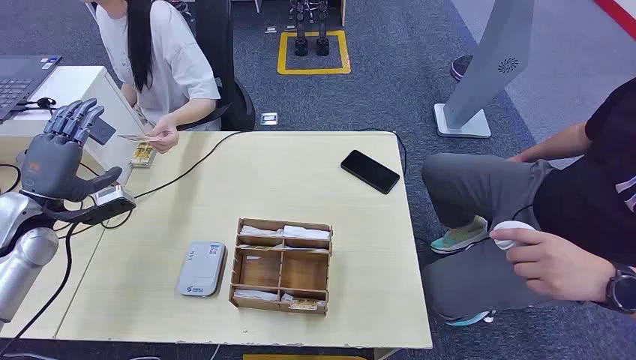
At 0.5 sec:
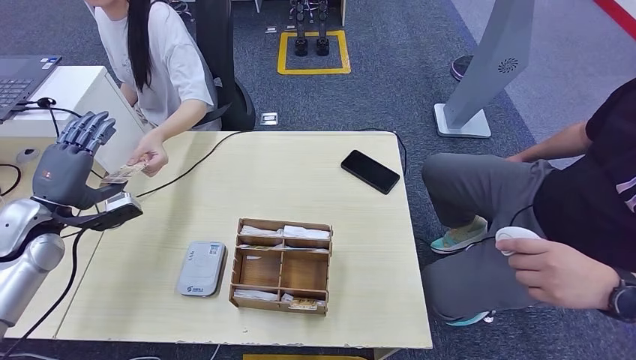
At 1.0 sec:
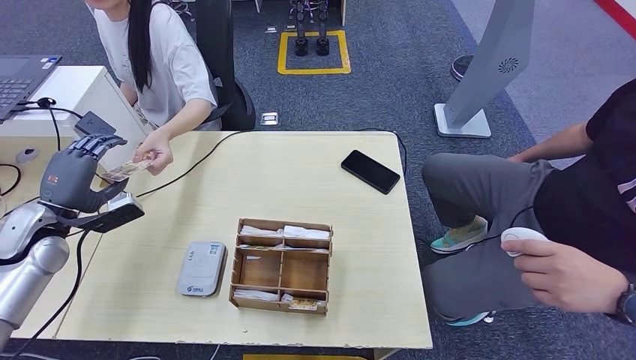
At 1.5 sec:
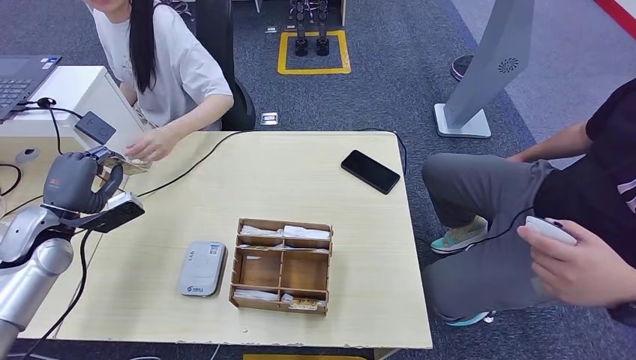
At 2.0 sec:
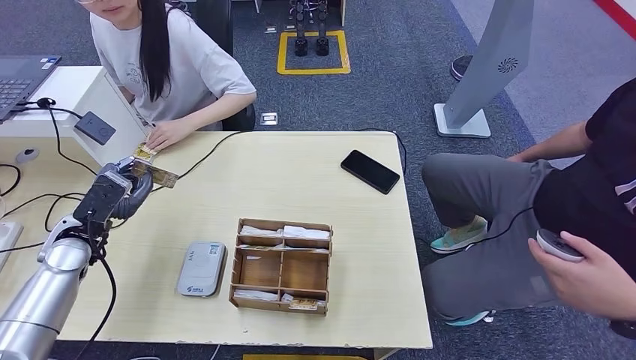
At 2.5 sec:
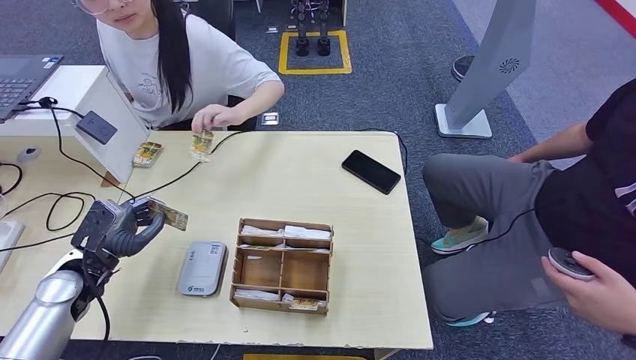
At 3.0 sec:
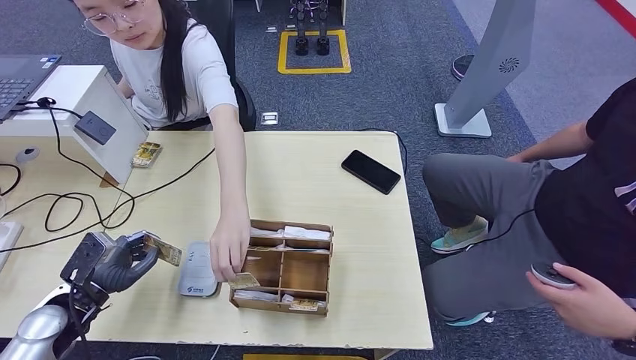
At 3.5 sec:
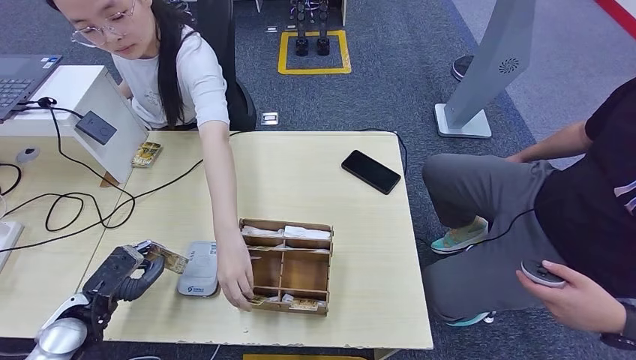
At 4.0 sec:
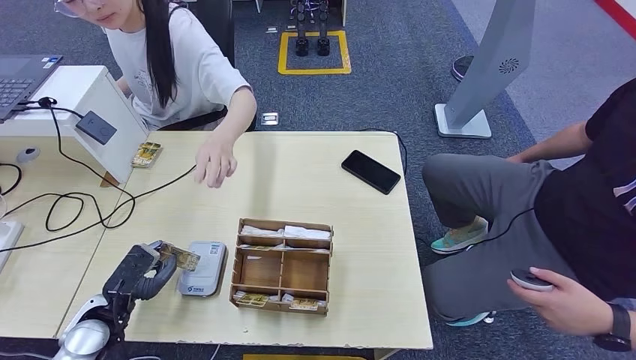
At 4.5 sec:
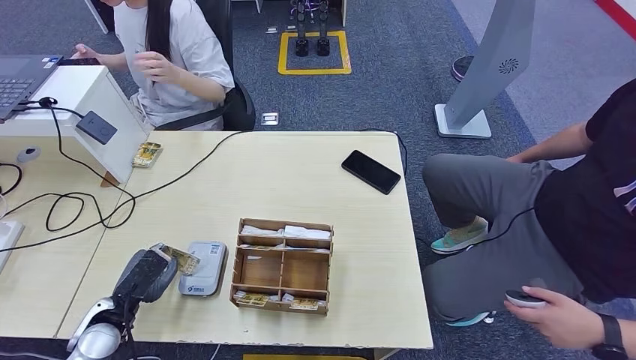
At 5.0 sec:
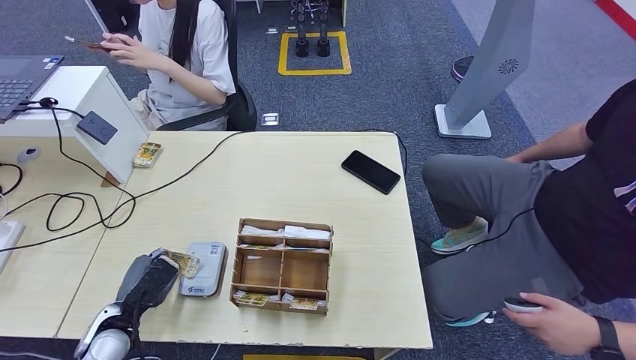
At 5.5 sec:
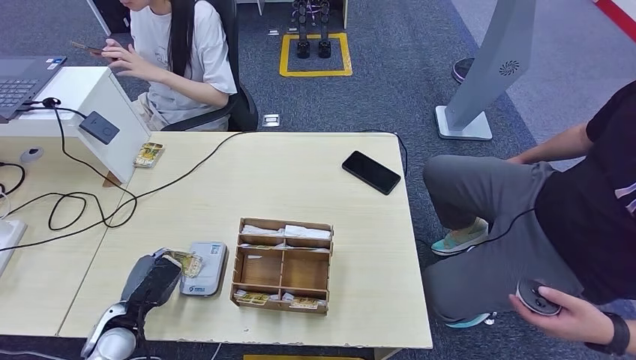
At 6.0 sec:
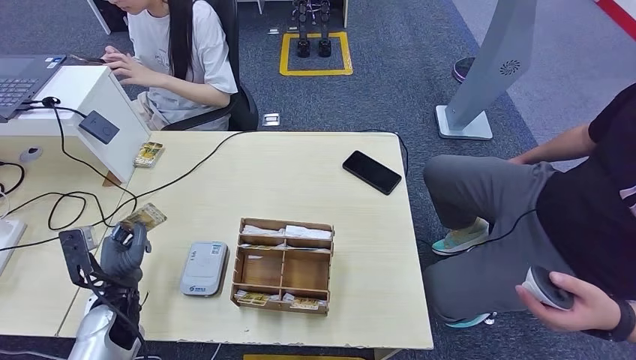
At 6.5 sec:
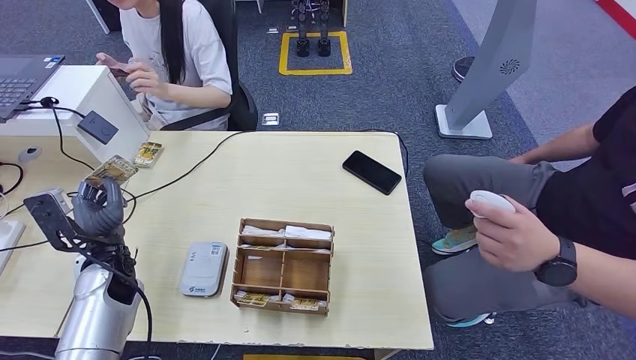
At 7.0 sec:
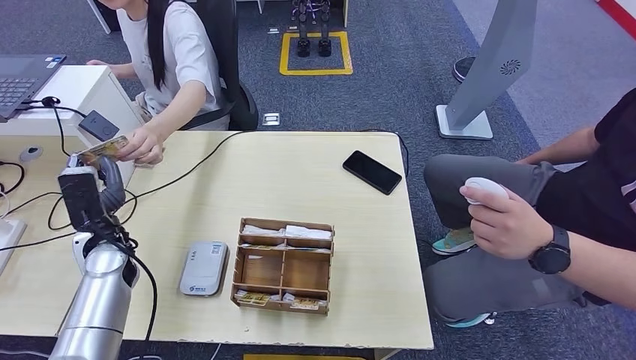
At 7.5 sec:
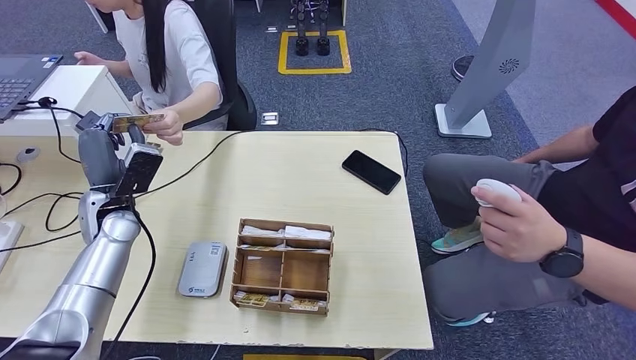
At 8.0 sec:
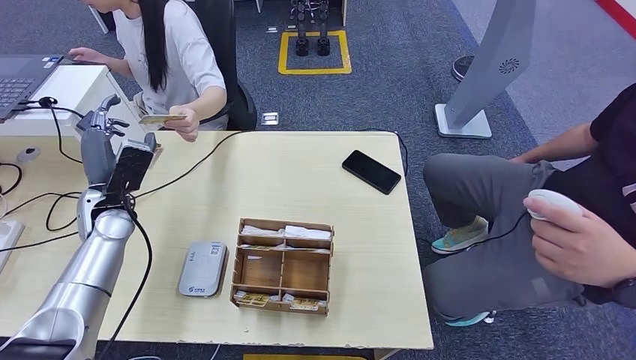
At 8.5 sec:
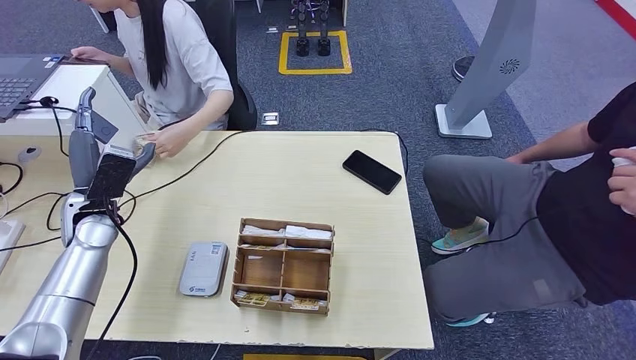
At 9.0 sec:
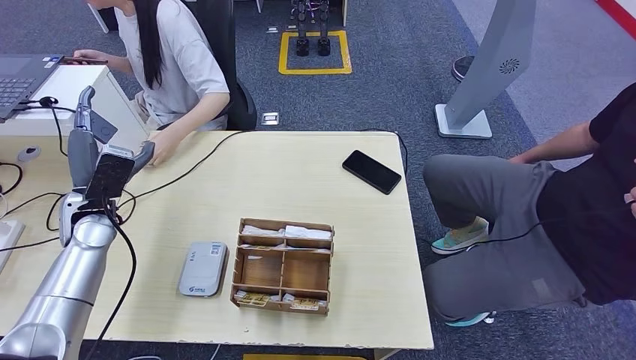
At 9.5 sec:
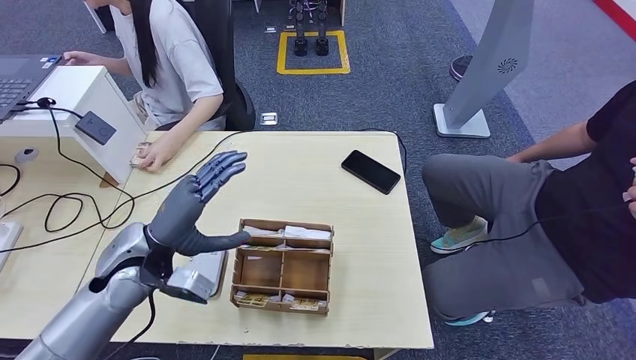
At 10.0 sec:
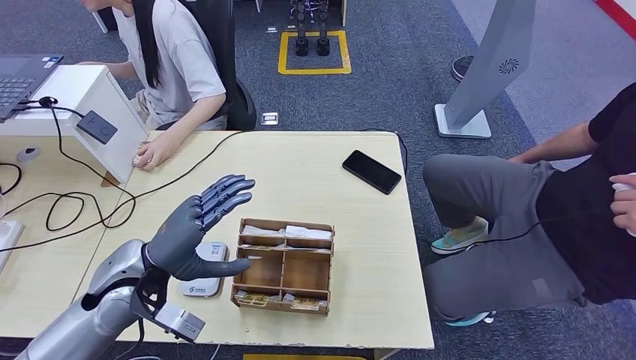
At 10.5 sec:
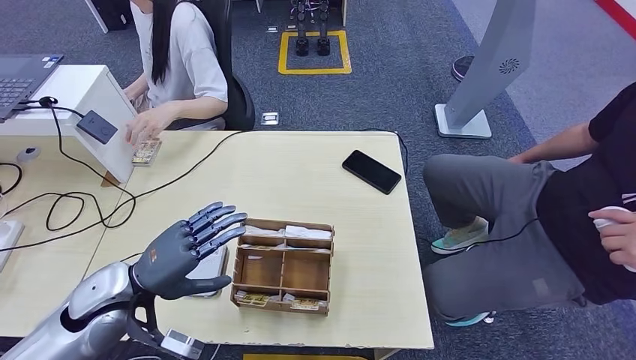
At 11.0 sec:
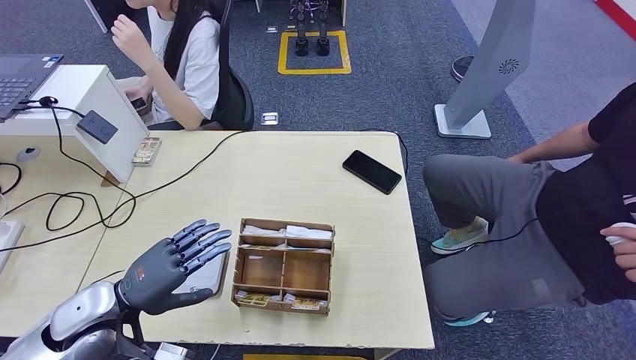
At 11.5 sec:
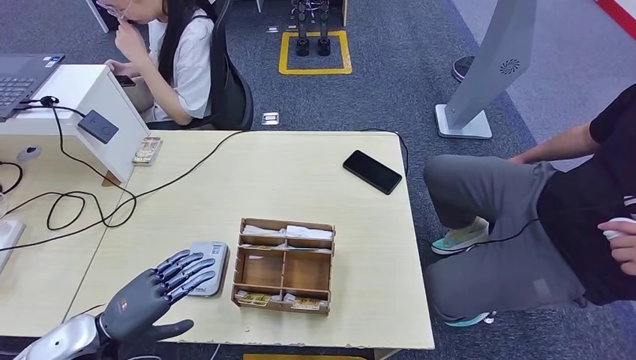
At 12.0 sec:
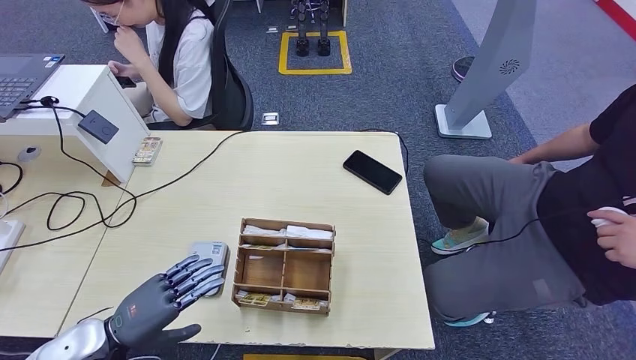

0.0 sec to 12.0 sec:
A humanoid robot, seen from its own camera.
Step, 0.0 sec to 2.5 sec: Take the ID card from the person's hand.
Step, 3.0 sec to 5.0 sec: Place the ID card on the card reader.
Step, 5.5 sec to 8.0 sec: Hand the ID card to the person.
2.0 sec to 4.0 sec: The left hand goes about 15 cm backward and downward.
8.0 sec to 10.0 sec: The left hand heads backward and to the right, covering about 15 cm.
10.0 sec to 12.0 sec: The left hand goes approximately 15 cm backward, downward and to the left.

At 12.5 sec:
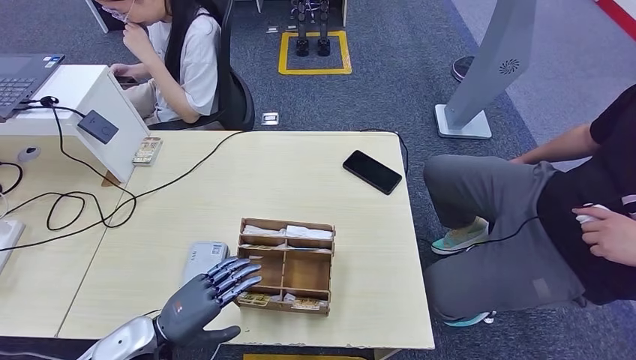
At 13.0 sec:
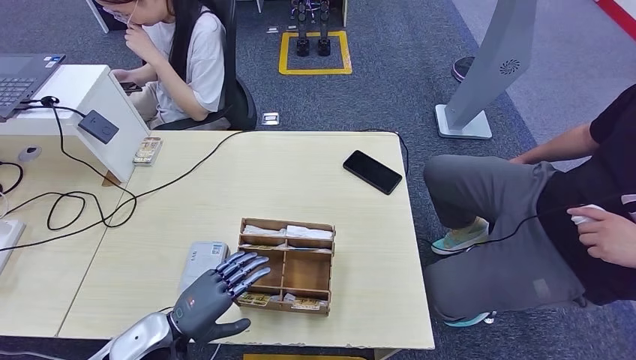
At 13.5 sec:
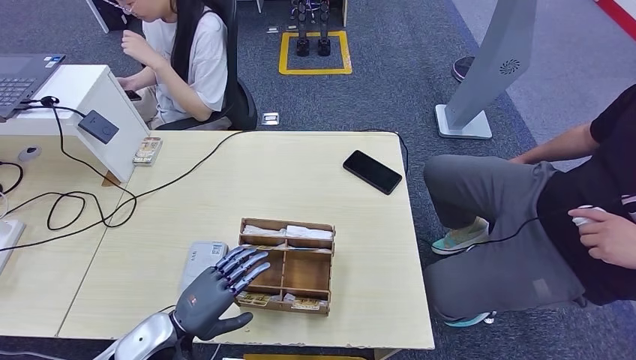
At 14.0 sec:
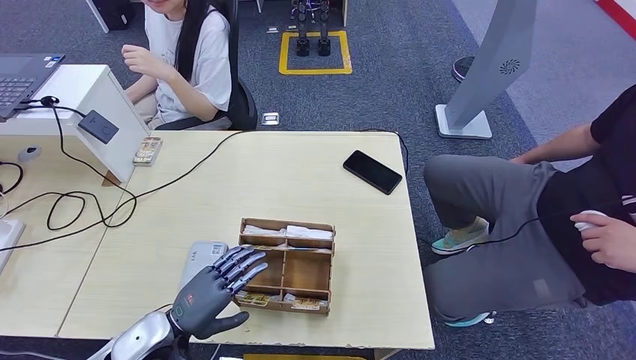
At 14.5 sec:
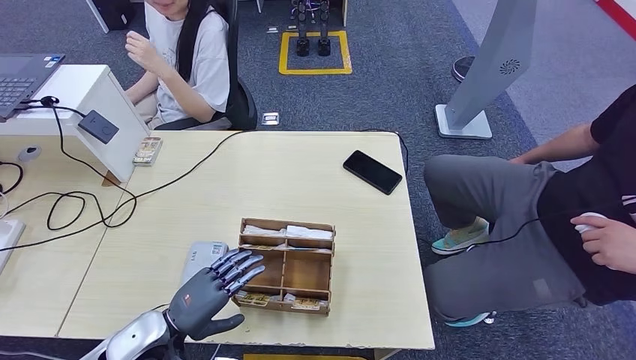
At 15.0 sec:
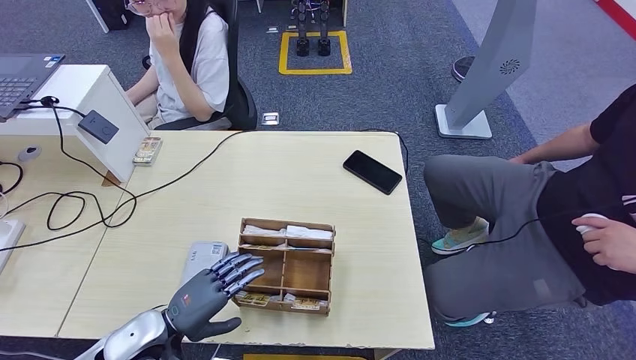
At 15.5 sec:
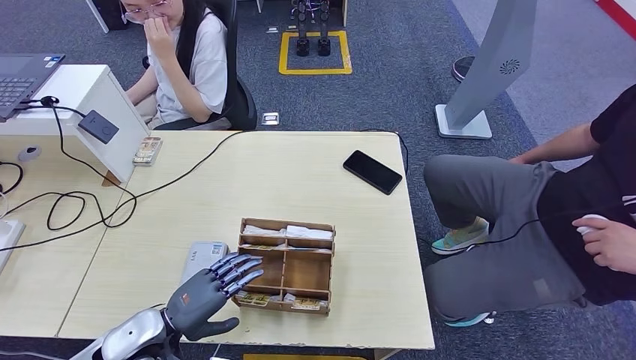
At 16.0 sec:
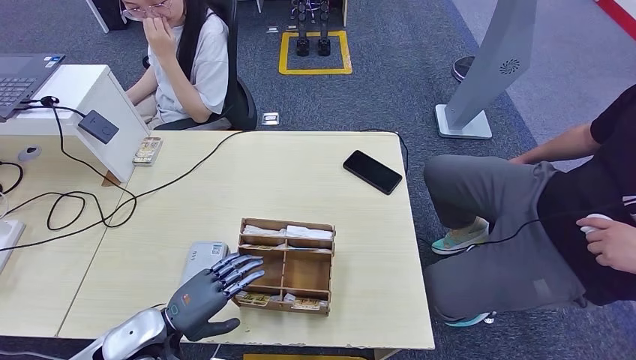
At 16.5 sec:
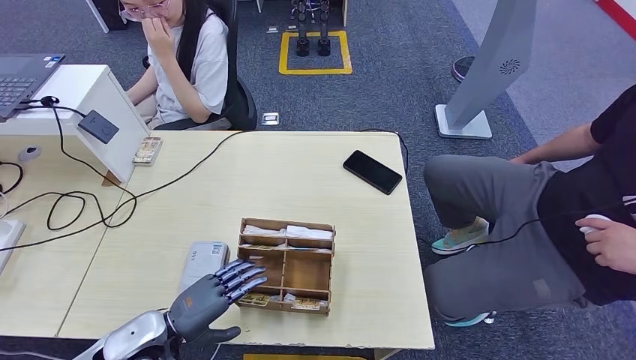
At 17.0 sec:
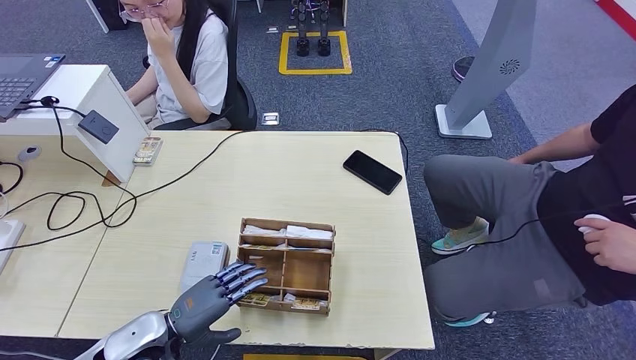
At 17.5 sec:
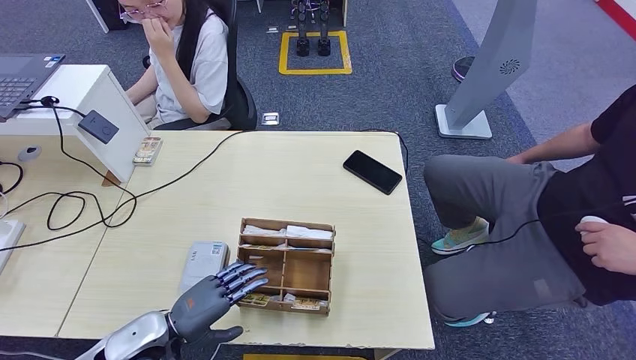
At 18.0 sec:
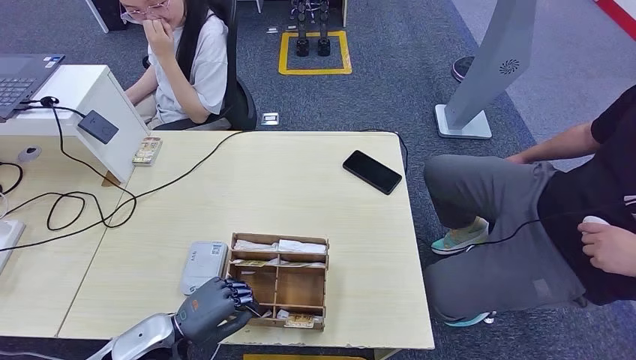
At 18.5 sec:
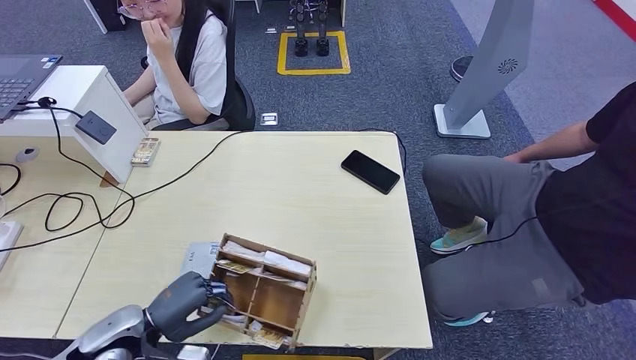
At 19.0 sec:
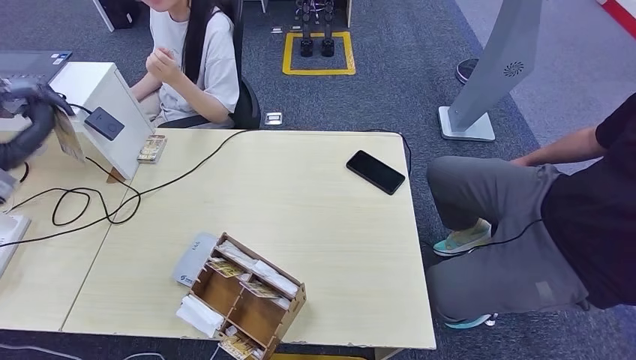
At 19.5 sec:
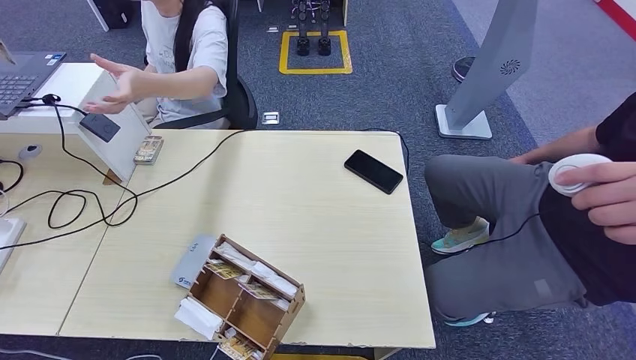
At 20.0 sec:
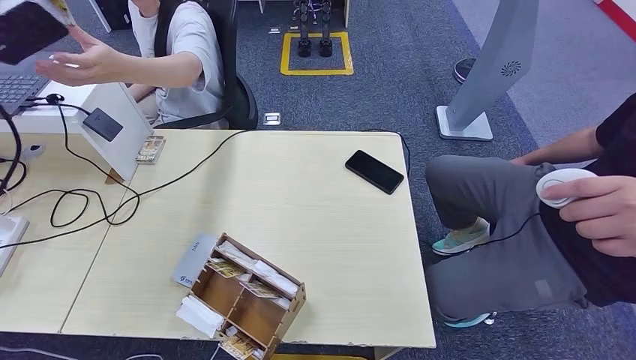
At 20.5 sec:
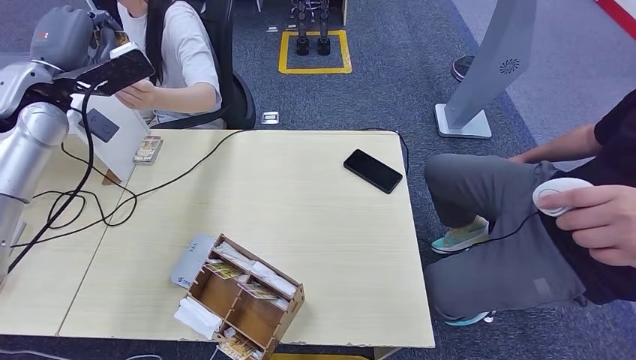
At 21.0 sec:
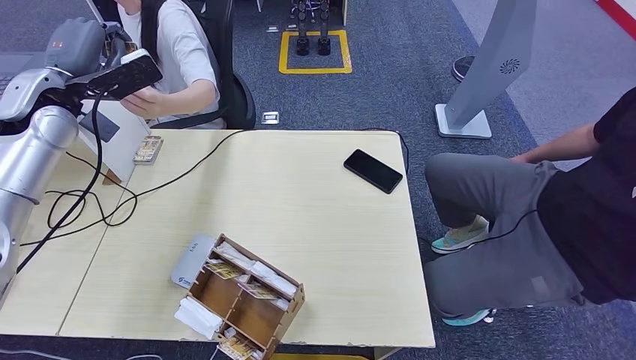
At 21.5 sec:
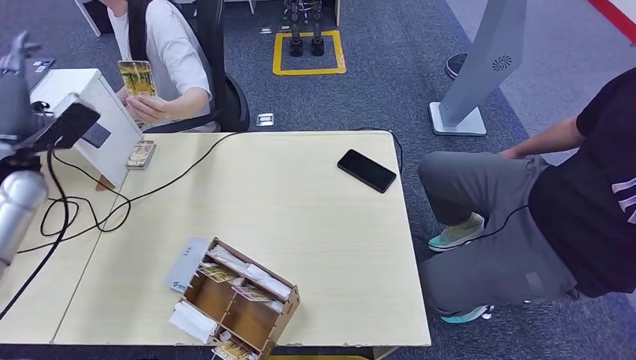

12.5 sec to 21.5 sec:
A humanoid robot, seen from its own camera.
Step, 12.5 sec to 19.5 sec: Pick up the room key from the key card box.
Step, 20.0 sec to 21.5 sec: Hand the room key to the person.
12.5 sec to 17.0 sec: The hands make only small movements.
17.0 sec to 19.5 sec: The left hand is displaced upward and to the left by roughly 40 cm.
